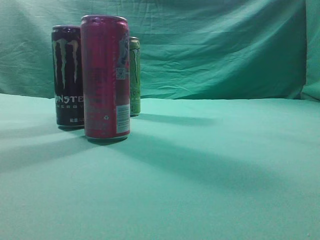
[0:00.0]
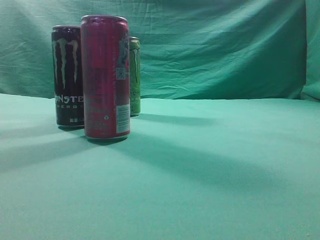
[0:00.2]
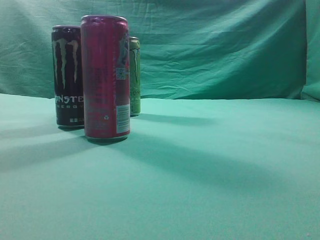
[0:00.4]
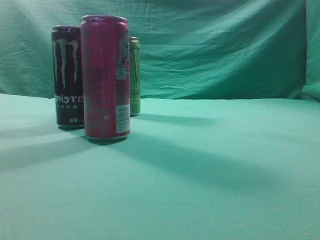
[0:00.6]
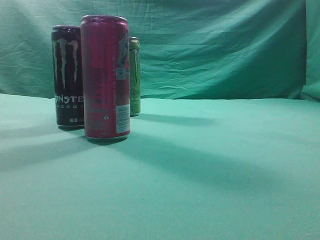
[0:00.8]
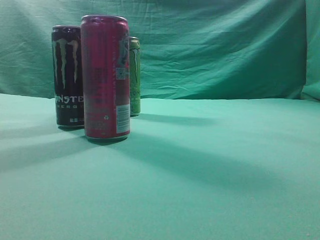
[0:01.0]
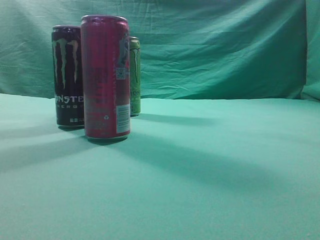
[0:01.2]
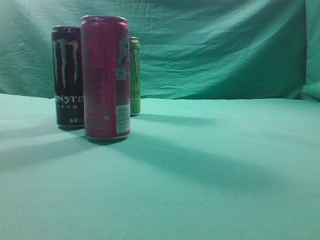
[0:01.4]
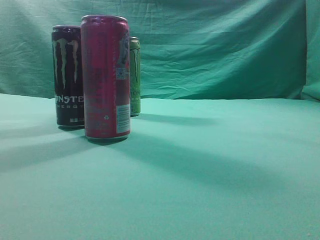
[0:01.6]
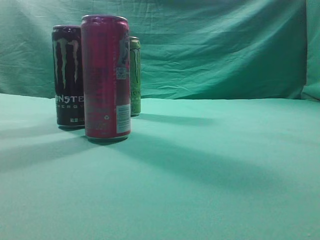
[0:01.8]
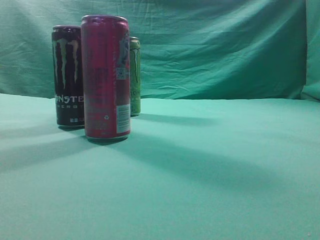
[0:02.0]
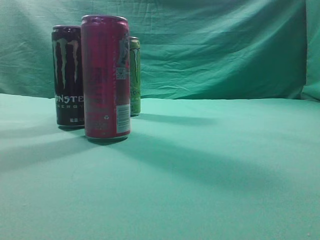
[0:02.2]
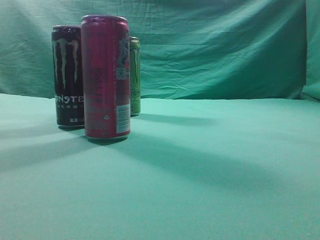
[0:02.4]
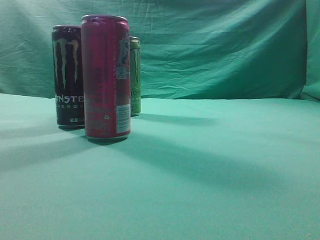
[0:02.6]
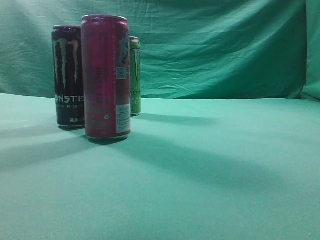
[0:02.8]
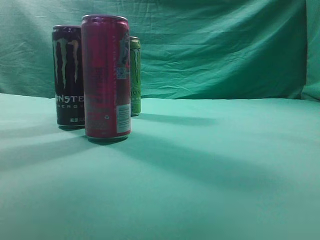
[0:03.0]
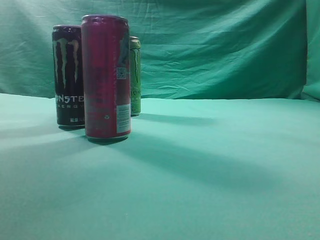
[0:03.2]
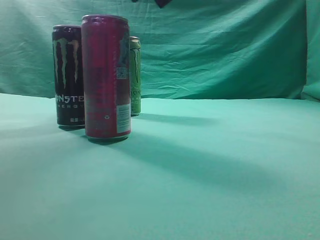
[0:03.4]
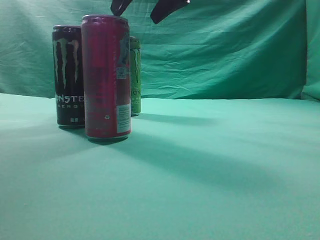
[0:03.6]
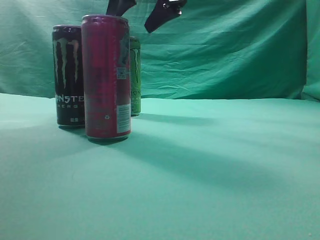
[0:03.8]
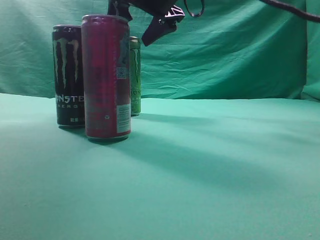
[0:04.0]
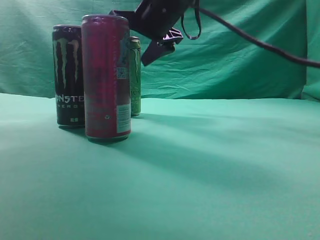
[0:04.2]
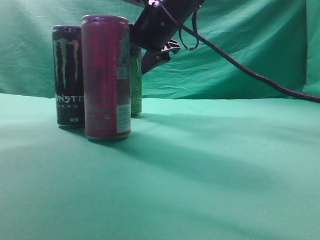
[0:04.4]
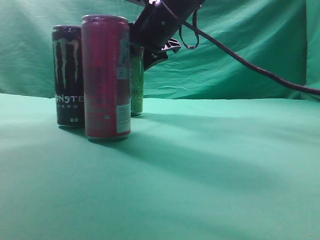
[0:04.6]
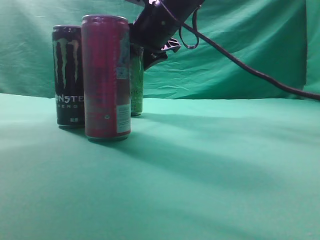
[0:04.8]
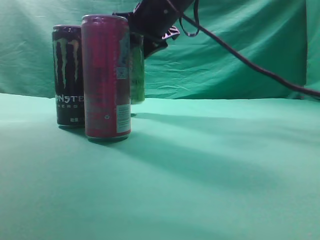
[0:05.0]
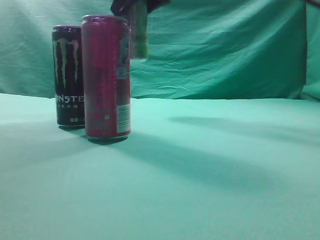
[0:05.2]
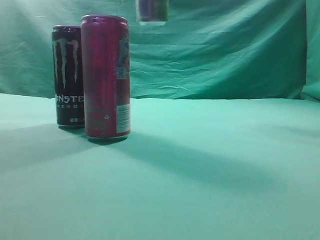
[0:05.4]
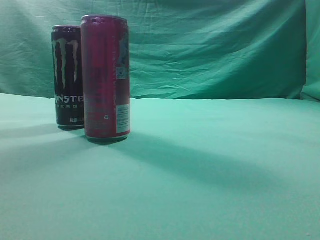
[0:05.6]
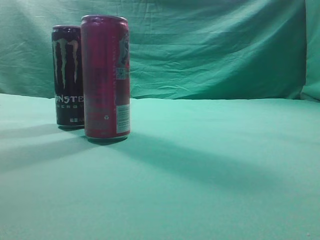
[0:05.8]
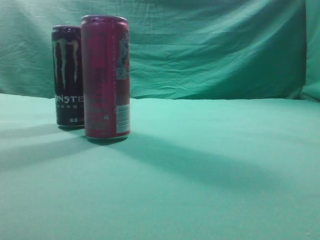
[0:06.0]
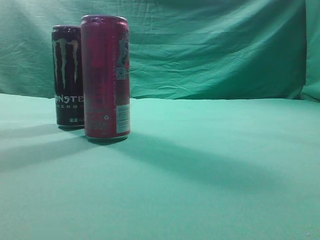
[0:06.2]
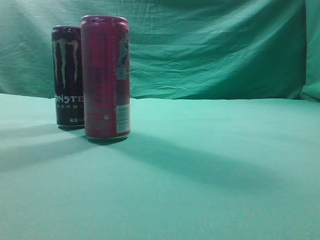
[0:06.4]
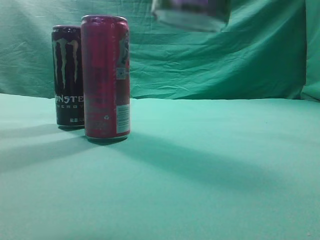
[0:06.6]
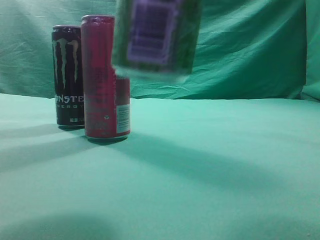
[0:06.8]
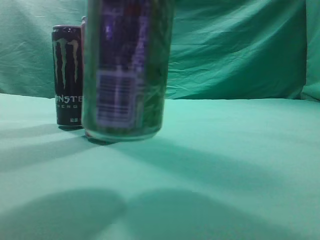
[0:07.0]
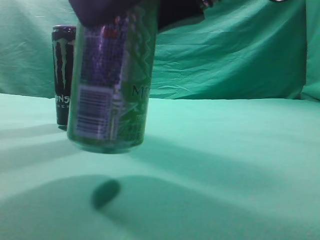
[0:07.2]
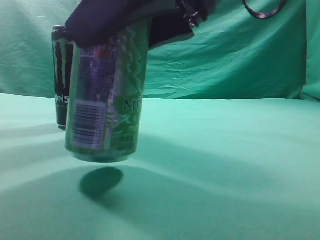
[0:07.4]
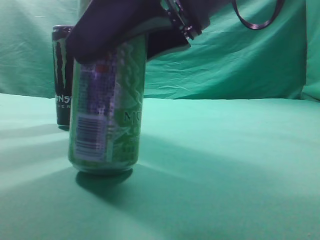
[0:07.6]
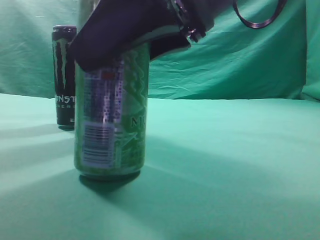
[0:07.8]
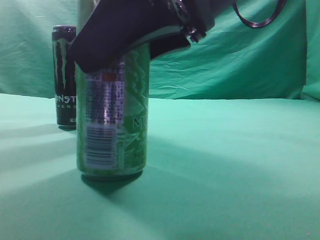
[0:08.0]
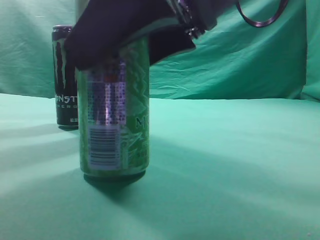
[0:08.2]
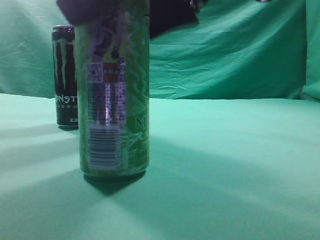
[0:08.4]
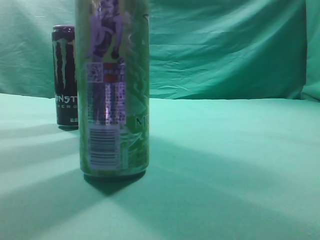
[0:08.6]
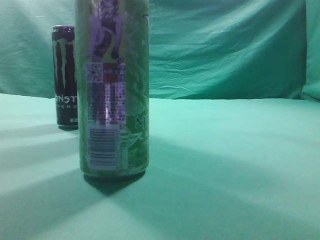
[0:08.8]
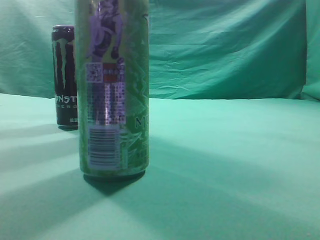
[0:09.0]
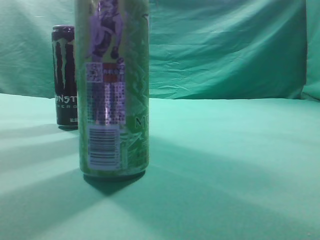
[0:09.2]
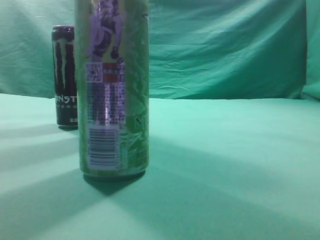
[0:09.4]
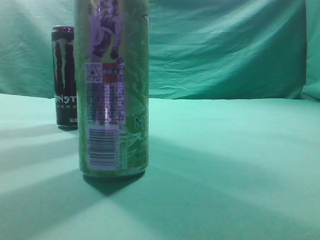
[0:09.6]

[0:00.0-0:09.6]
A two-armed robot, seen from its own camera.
Task of the whole recording: move one drink among three beverages.
Step, 0:00.0 to 0:05.0: Grasp the beverage bottle placed at the back of the desk.
Step, 0:05.2 to 0:08.4: Place the beverage bottle to the front of the table.
0:03.2 to 0:04.8: The right gripper is displaced downward, forward and to the left by roughly 15 cm, and opens its fingers.
0:04.8 to 0:06.4: The right gripper is displaced backward, to the right and upward by about 30 cm.
0:06.4 to 0:08.0: The right gripper is displaced downward and to the left by approximately 15 cm.
0:08.0 to 0:09.6: The right gripper goes roughly 25 cm to the right, upward and backward, and closes.

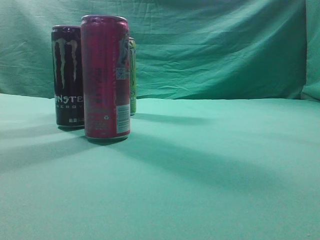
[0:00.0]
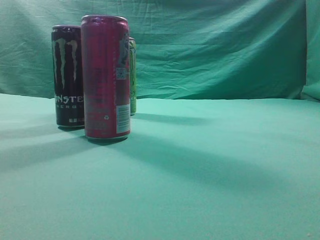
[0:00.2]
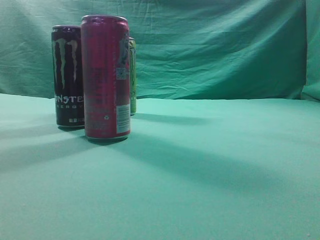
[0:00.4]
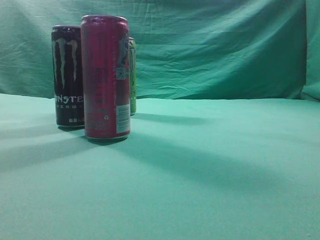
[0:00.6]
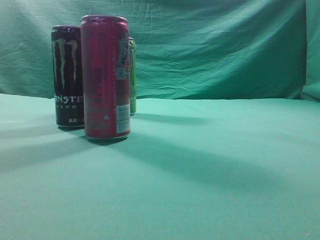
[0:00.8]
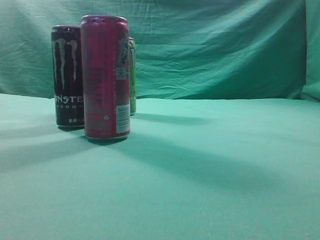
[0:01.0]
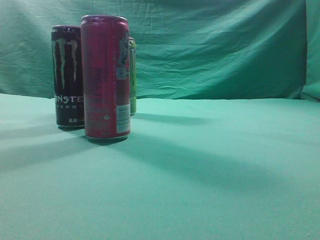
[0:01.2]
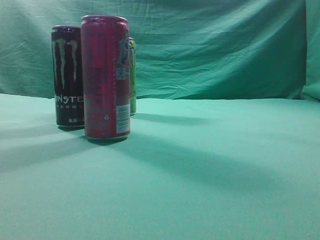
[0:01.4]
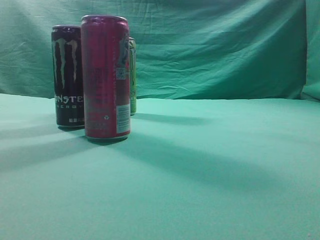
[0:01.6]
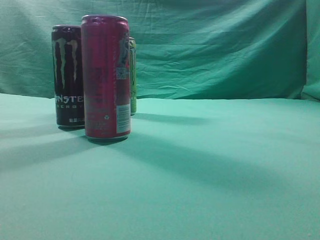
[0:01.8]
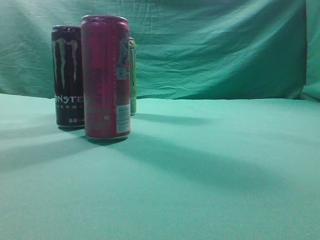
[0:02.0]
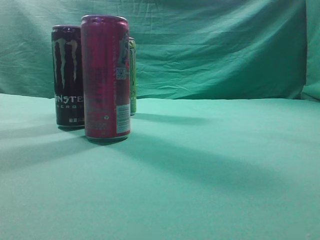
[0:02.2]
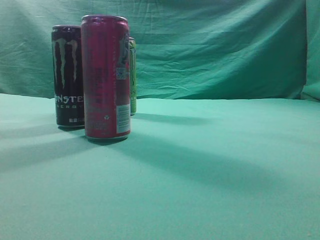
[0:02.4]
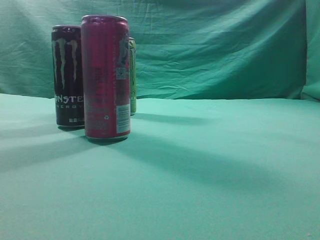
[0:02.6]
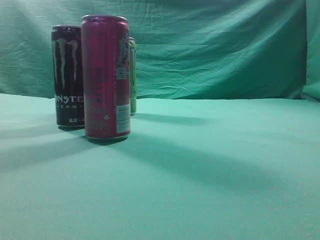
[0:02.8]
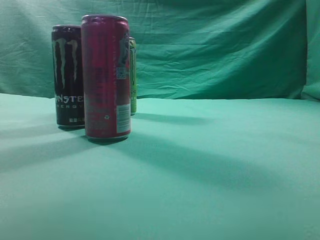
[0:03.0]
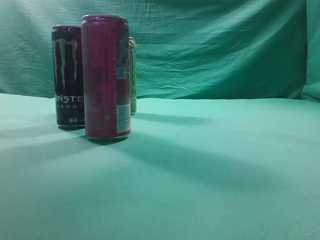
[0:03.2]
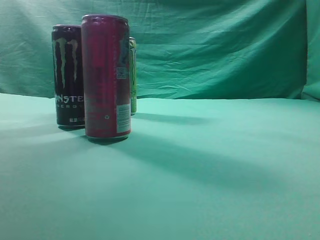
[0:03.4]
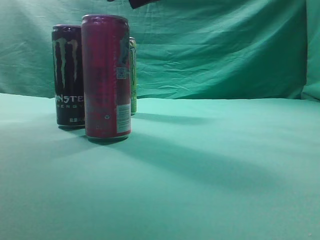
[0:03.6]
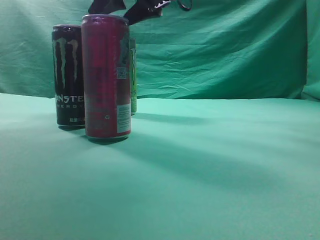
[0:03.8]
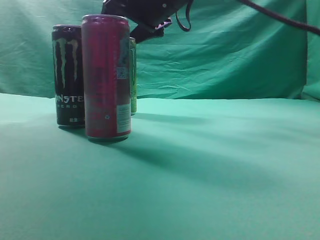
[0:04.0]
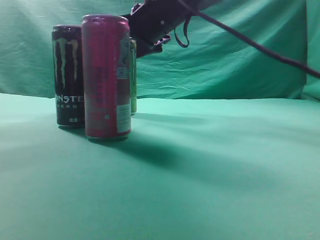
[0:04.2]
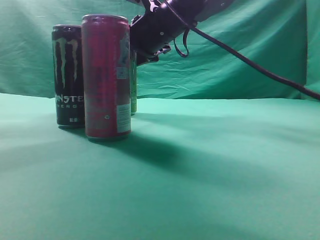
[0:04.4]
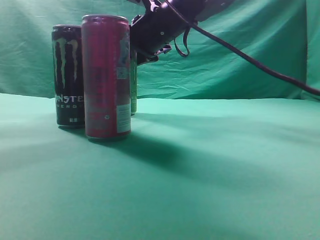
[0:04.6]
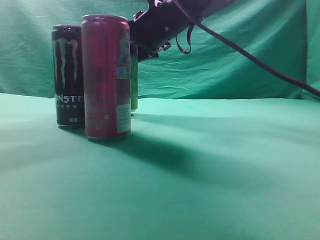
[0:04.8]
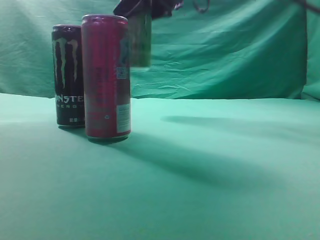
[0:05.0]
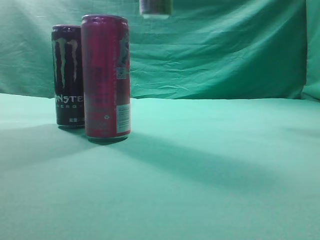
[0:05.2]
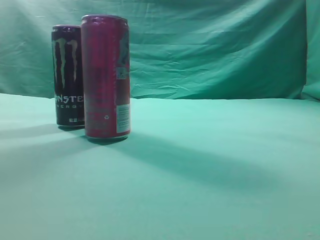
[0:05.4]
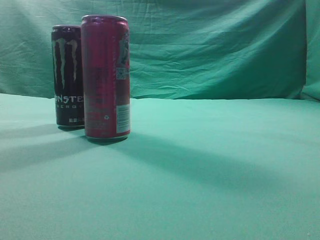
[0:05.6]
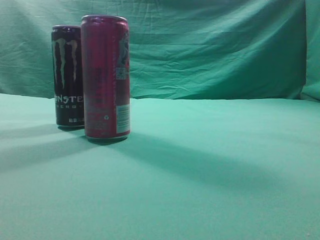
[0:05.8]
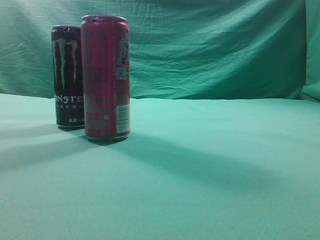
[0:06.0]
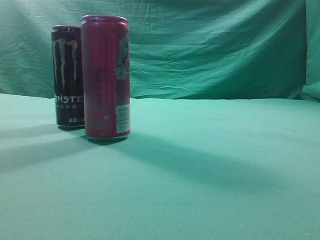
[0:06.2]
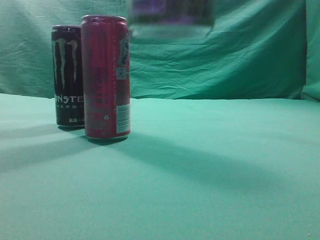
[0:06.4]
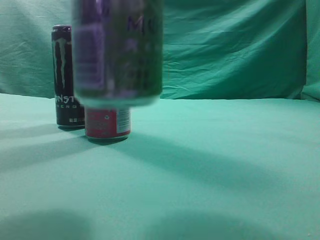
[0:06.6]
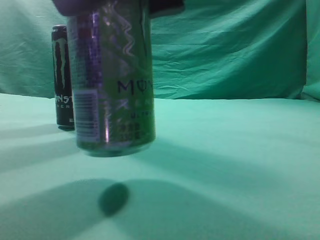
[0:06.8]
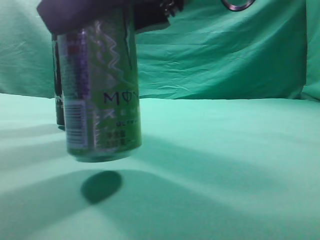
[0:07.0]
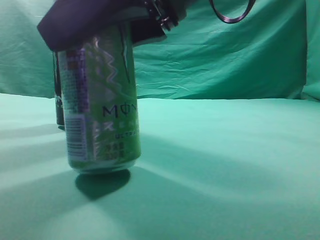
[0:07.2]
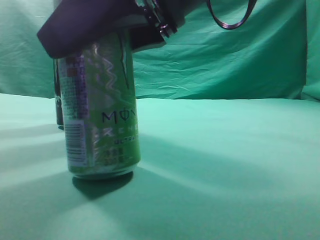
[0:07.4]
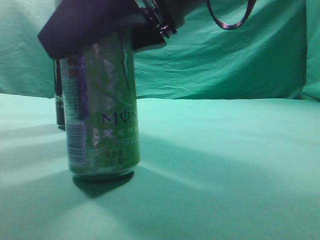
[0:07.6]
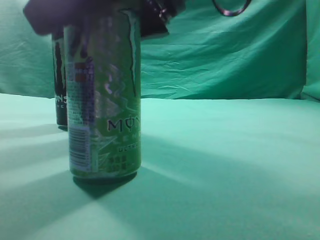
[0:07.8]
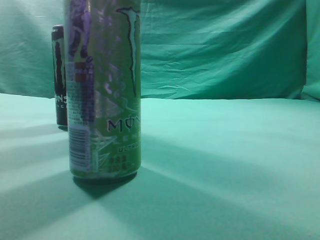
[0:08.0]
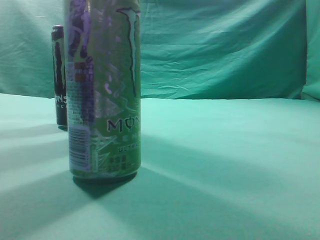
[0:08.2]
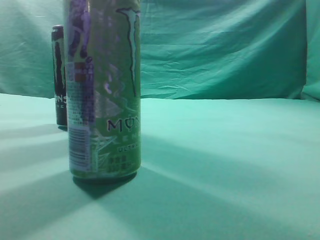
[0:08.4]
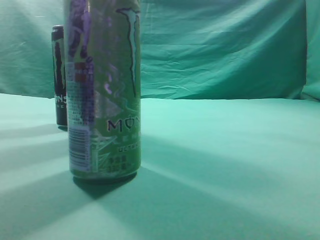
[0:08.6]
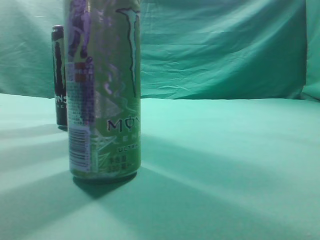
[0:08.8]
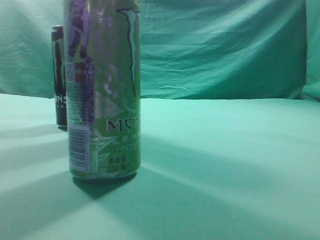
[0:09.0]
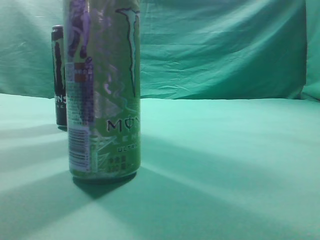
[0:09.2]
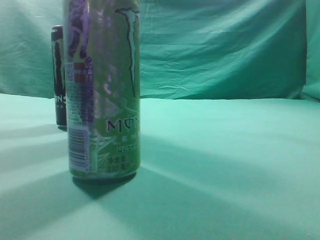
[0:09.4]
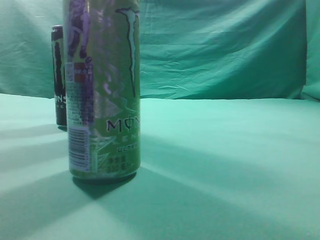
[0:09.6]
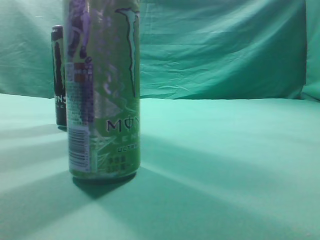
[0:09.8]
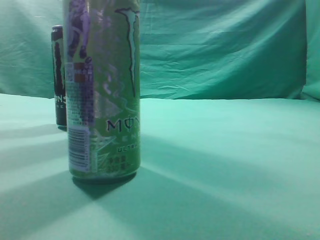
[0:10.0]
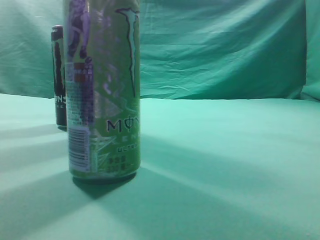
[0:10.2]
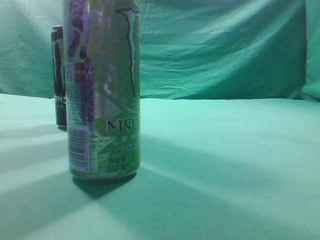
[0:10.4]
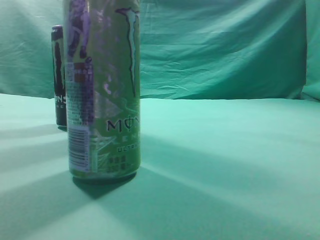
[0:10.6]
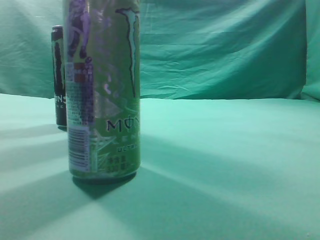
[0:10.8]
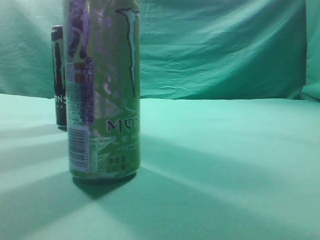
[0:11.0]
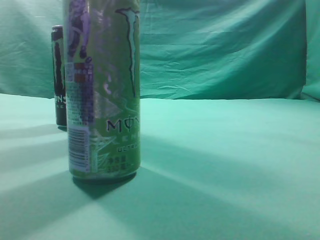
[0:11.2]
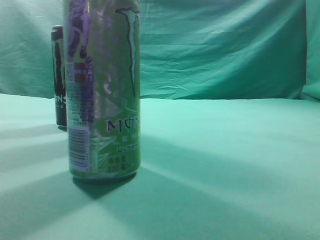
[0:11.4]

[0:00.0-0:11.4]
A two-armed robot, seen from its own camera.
Task of the whole recording: move one drink among three beverages.
Step, 0:00.0 to 0:05.0: Grasp the beverage bottle placed at the back of the desk.
Step, 0:05.2 to 0:08.2: Place the beverage bottle to the front of the table.
0:02.8 to 0:04.2: The right gripper moves forward, to the left and downward, roughly 30 cm, and opens its fingers.
0:04.2 to 0:05.6: The right gripper travels upward, backward and to the right by some 30 cm.
0:05.6 to 0:07.2: The right gripper travels downward and to the left by some 25 cm.
0:07.2 to 0:08.6: The right gripper shifts approximately 20 cm upward and to the right, and closes up.

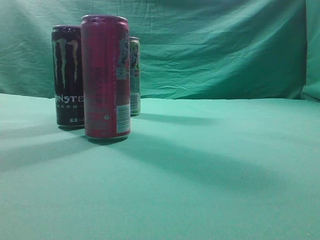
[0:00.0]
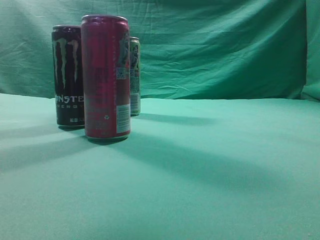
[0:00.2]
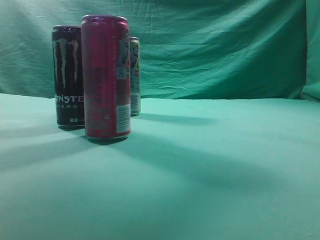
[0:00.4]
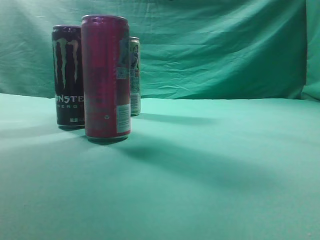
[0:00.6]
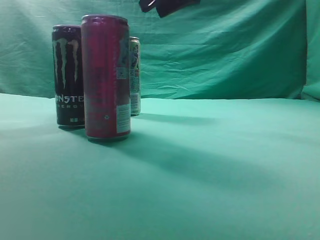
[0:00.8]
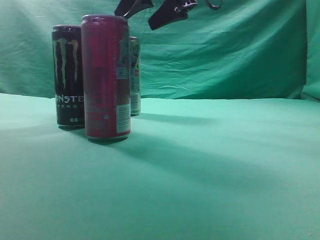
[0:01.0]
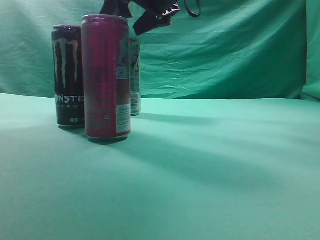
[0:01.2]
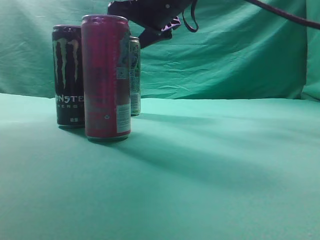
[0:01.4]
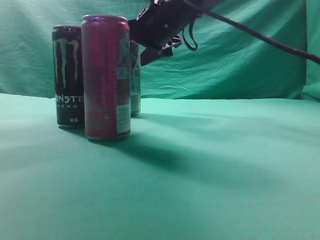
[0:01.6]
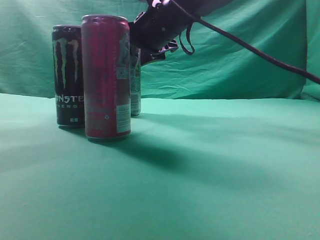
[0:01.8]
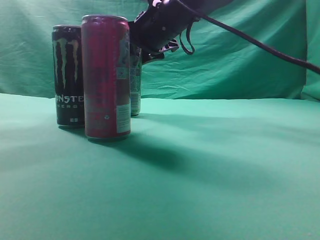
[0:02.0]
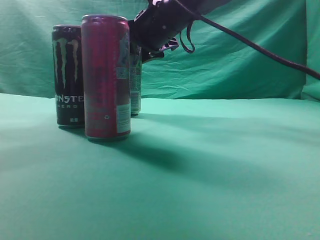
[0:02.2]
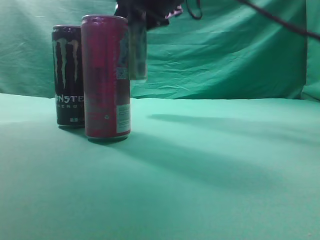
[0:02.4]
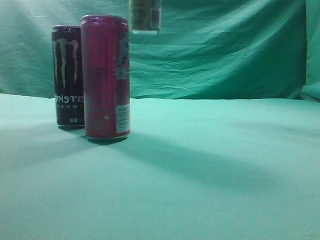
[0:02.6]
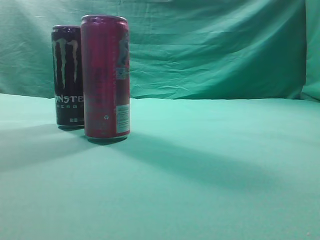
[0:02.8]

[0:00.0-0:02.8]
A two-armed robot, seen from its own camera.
Task of the whole recording: move one drink among three beverages.
Step, 0:00.0 to 0:02.6: Grasp the beverage bottle placed at the back of the desk.
0:00.0 to 0:01.4: The right gripper heads forward and to the left, covering about 30 cm, and opens its fingers.
0:01.4 to 0:02.8: The right gripper moves upward, to the right and backward, approximately 20 cm.
